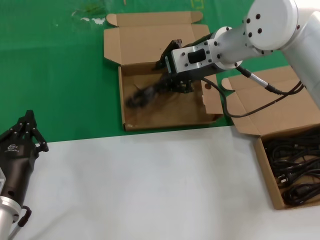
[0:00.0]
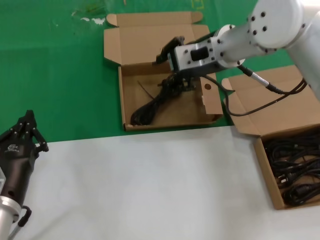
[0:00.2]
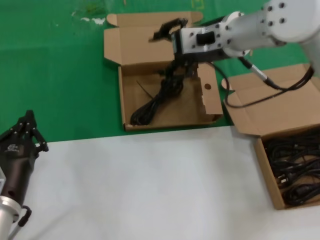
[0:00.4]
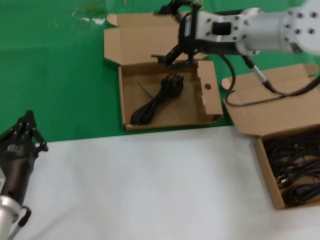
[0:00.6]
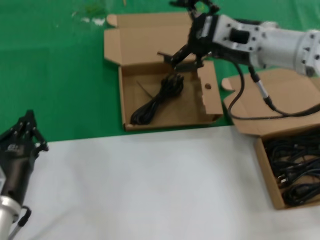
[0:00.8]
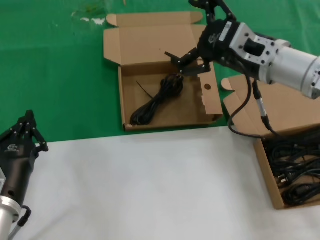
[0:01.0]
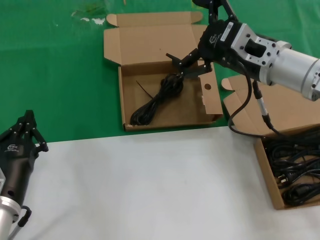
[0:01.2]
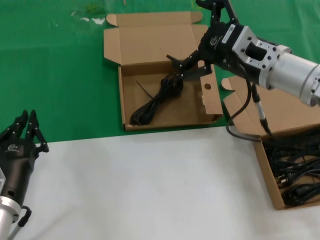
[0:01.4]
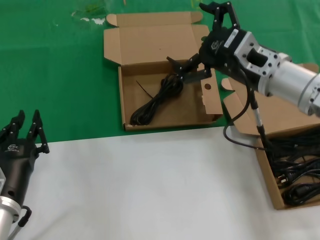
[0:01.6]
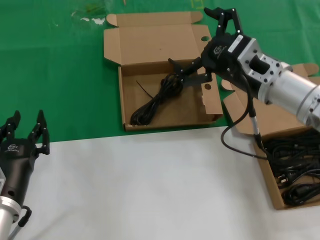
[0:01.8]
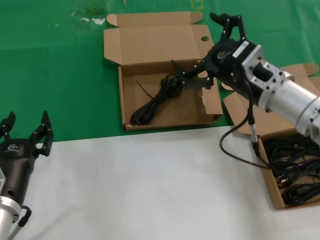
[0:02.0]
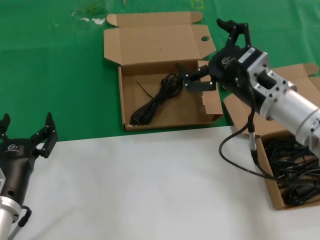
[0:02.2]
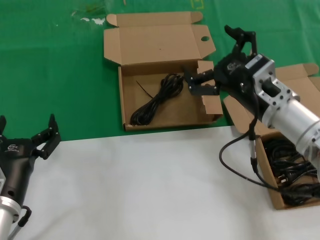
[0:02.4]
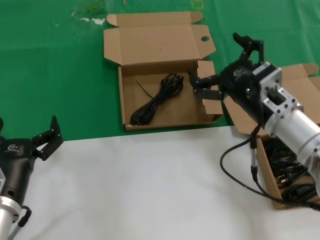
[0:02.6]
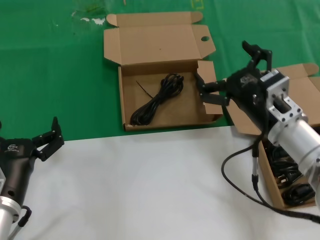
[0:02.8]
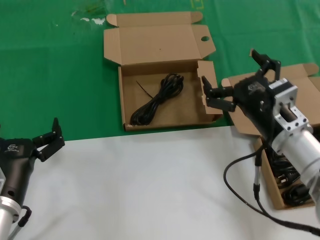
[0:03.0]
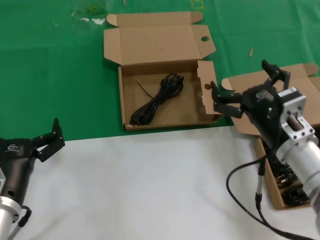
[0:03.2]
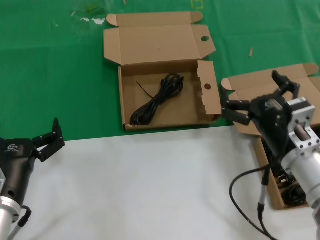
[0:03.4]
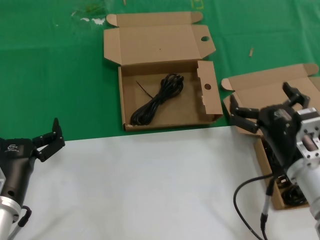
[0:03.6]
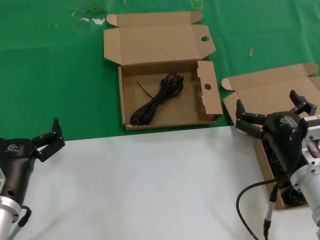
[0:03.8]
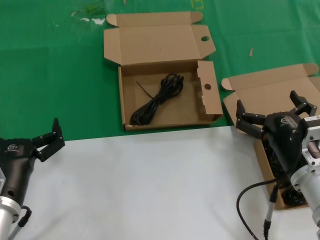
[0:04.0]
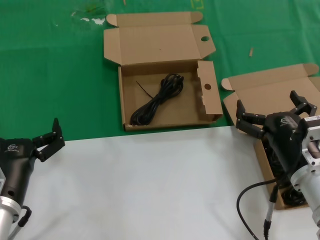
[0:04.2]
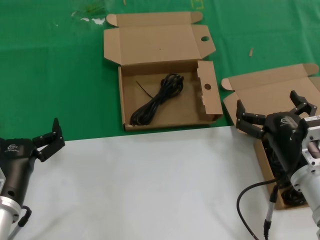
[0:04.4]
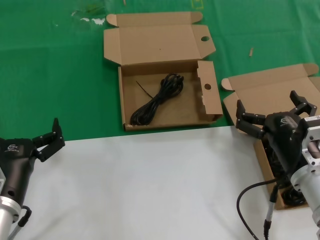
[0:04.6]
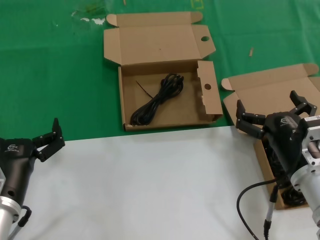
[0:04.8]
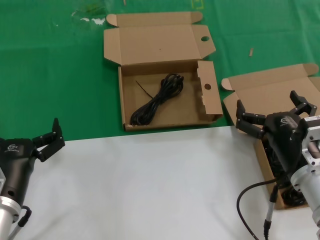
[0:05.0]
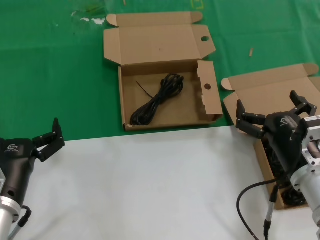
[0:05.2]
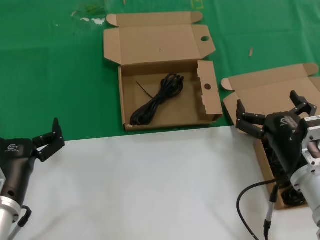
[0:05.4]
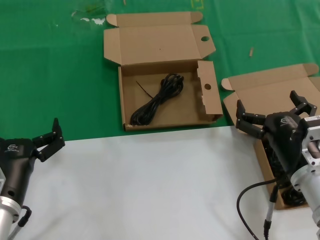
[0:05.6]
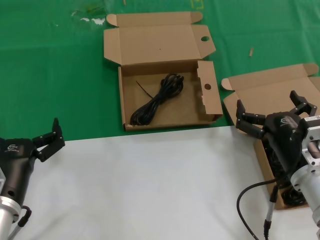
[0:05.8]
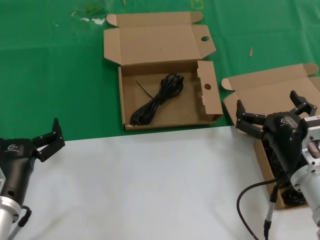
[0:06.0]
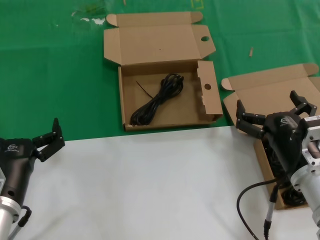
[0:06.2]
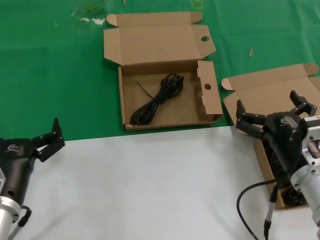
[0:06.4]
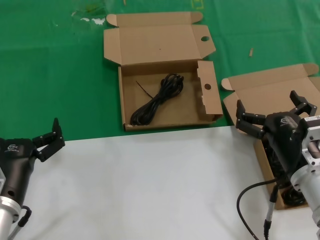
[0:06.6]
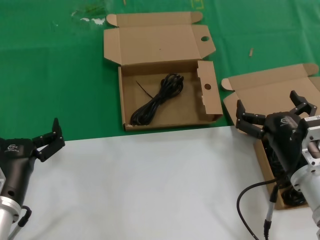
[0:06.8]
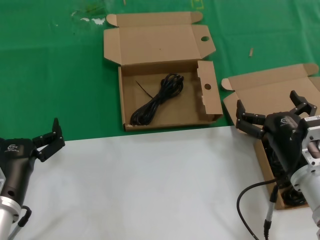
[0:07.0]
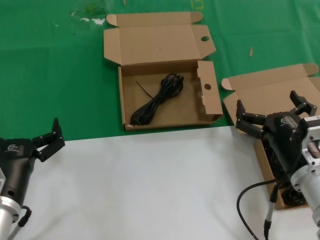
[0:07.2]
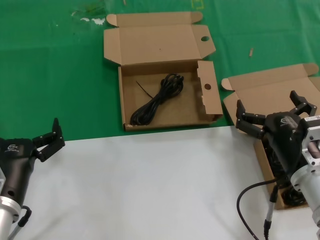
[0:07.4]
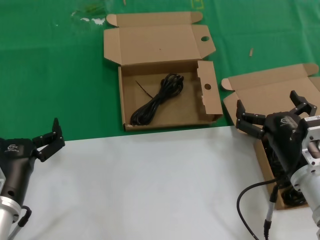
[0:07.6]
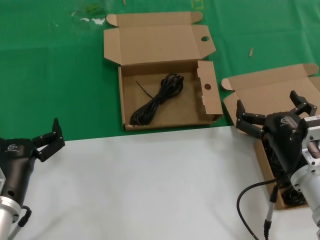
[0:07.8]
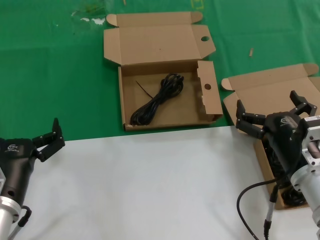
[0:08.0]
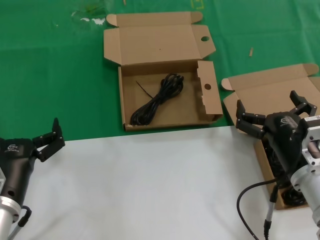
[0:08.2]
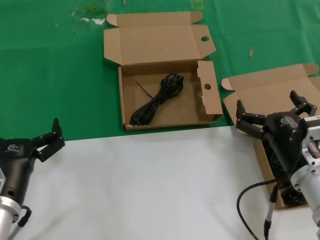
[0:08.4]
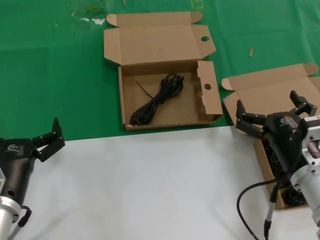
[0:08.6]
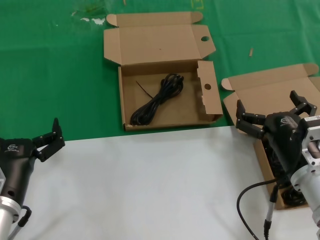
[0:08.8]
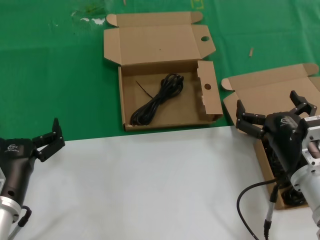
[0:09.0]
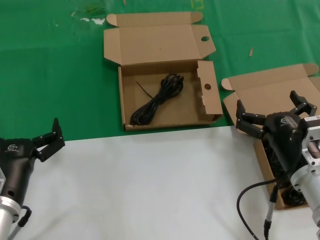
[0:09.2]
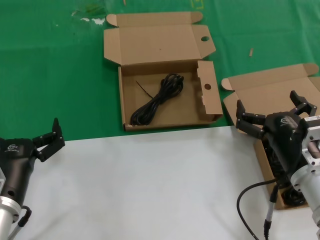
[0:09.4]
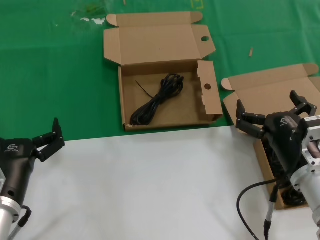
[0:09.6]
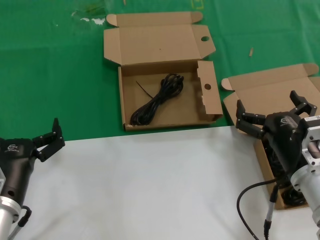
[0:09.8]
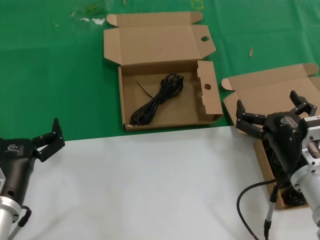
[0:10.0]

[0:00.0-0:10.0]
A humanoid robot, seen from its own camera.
Task of the whole recording: take the parts from the box containing them and put them into an empty box.
0:00.0 to 0:01.4: The right hand moves backward and to the right, approximately 10 cm.
0:01.4 to 0:02.8: The right hand travels downward and backward by approximately 10 cm.
0:02.8 to 0:04.2: The right hand goes approximately 10 cm backward and downward.
0:04.2 to 0:10.0: The two hands keep their place.

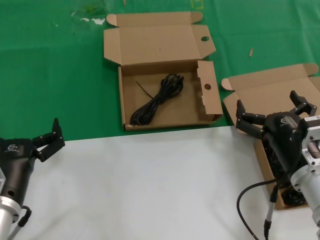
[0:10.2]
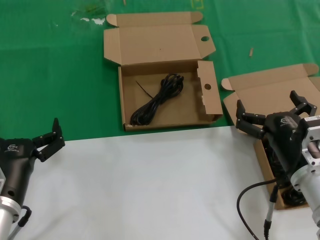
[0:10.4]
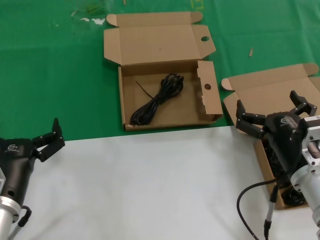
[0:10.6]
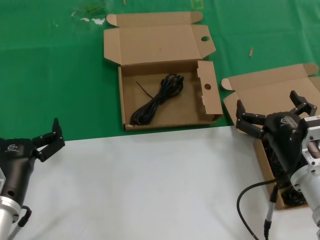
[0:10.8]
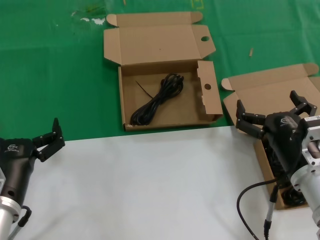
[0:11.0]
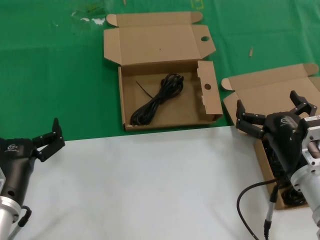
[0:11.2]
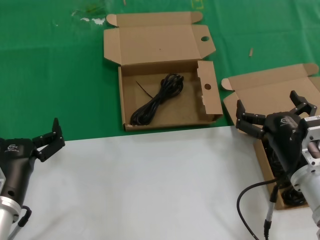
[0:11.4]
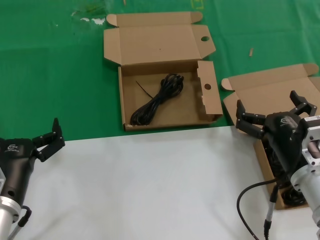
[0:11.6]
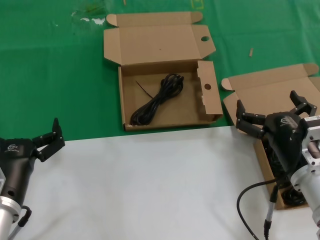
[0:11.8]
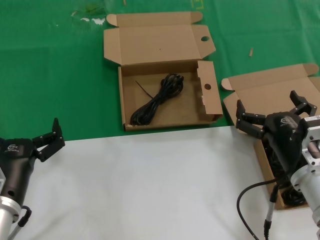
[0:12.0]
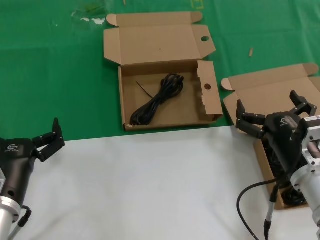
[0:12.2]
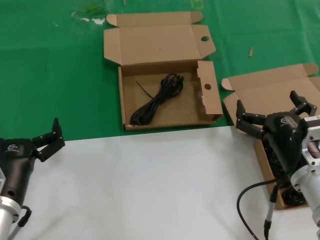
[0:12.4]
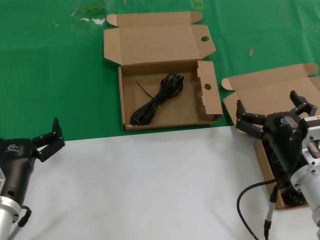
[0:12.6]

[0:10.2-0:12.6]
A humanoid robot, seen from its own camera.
Task of the whole recording: take the parts from the box containing them and put them into an empty box.
0:10.2 to 0:12.6: Neither hand changes place.
